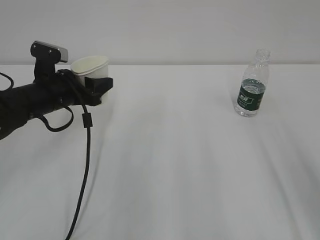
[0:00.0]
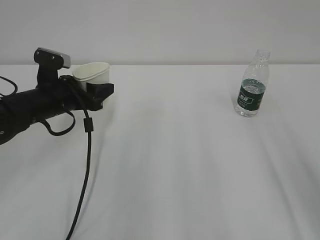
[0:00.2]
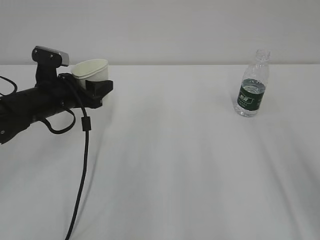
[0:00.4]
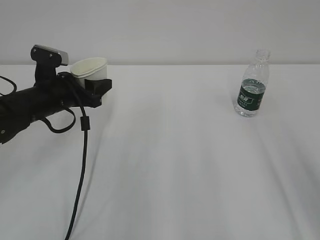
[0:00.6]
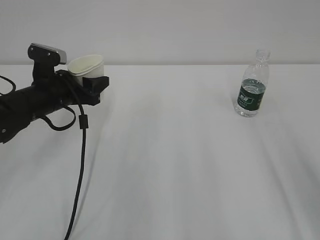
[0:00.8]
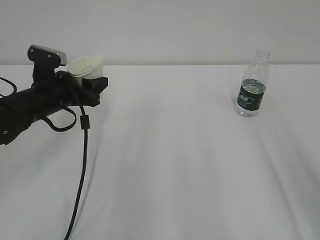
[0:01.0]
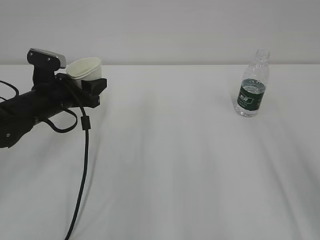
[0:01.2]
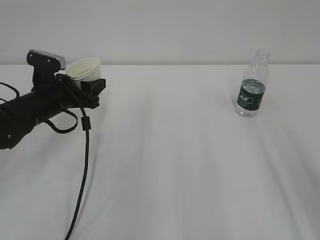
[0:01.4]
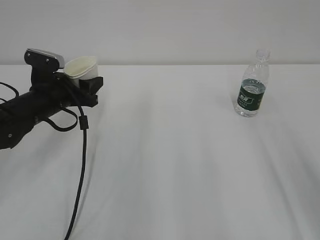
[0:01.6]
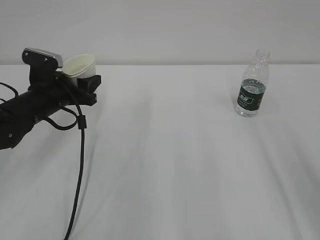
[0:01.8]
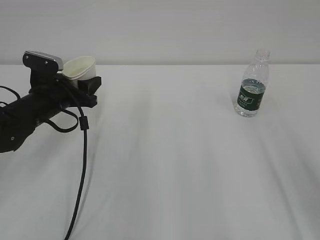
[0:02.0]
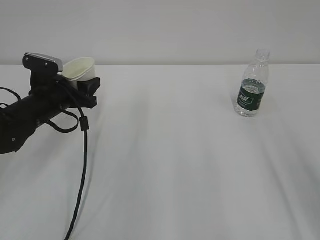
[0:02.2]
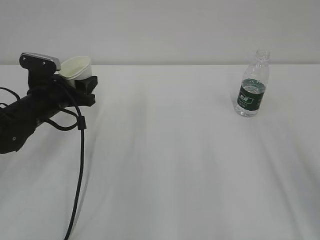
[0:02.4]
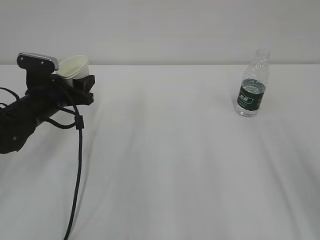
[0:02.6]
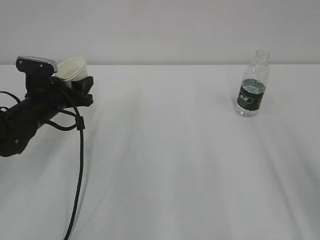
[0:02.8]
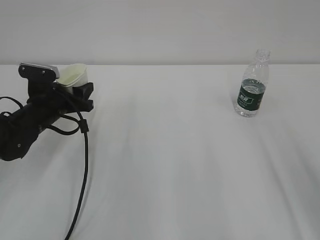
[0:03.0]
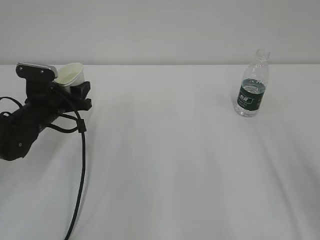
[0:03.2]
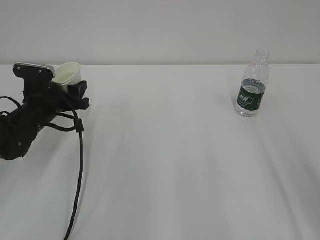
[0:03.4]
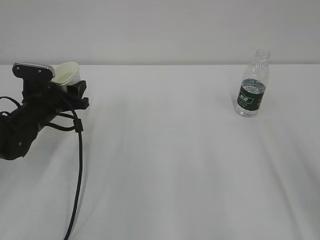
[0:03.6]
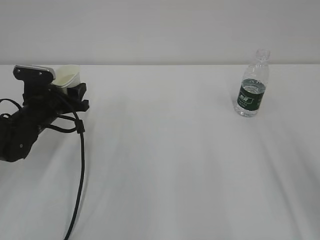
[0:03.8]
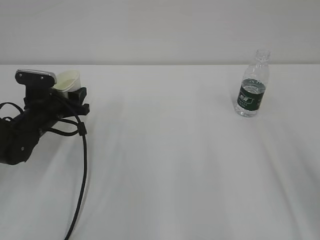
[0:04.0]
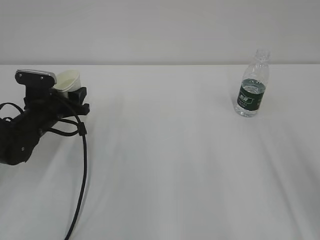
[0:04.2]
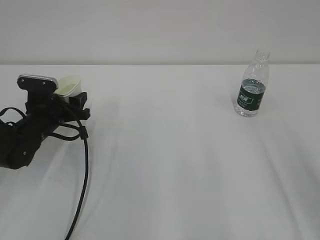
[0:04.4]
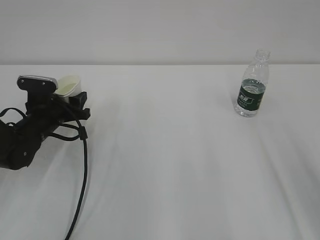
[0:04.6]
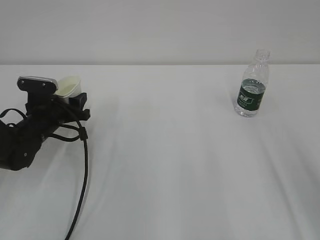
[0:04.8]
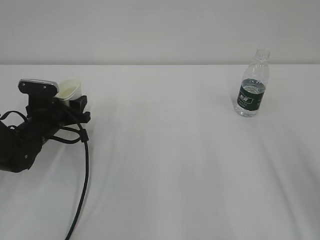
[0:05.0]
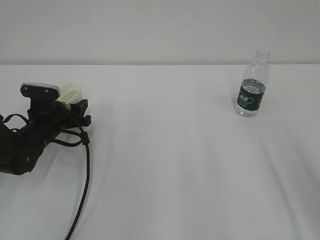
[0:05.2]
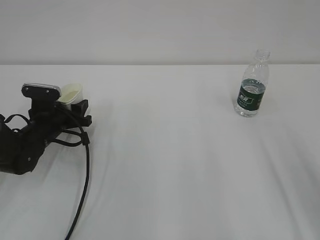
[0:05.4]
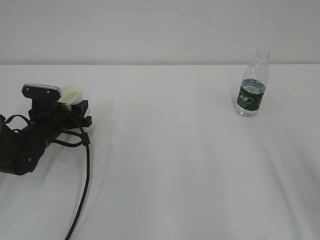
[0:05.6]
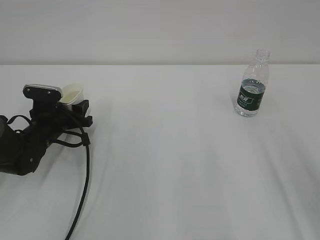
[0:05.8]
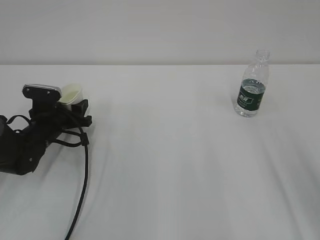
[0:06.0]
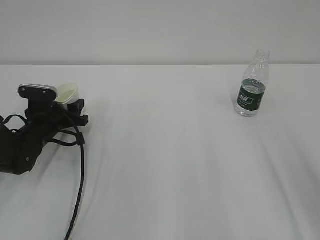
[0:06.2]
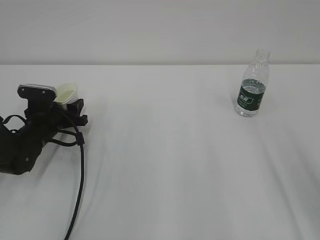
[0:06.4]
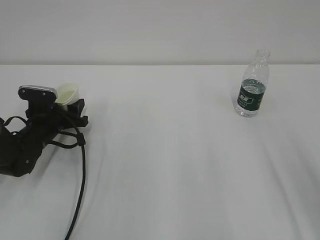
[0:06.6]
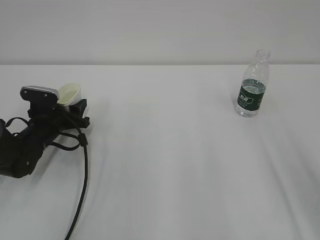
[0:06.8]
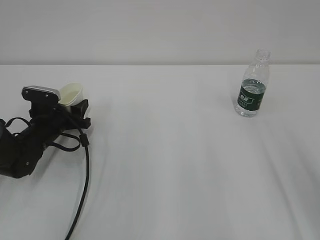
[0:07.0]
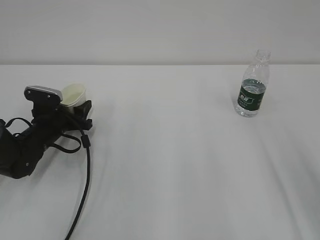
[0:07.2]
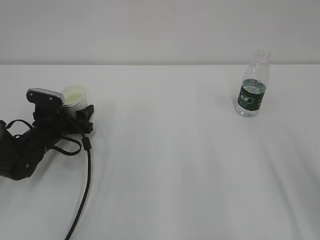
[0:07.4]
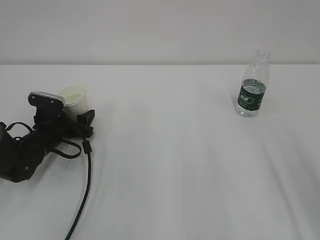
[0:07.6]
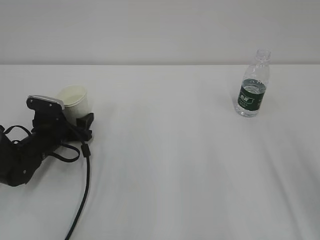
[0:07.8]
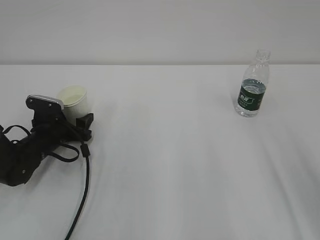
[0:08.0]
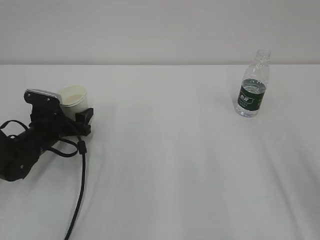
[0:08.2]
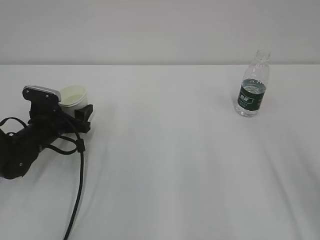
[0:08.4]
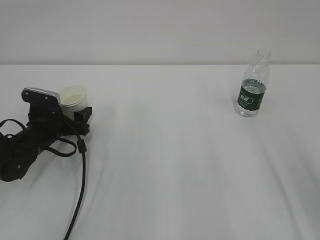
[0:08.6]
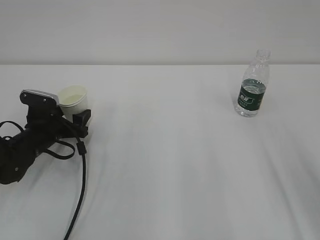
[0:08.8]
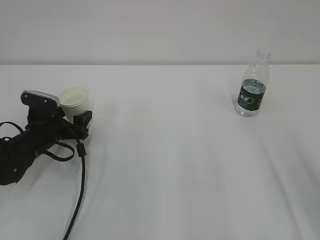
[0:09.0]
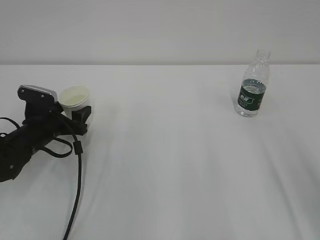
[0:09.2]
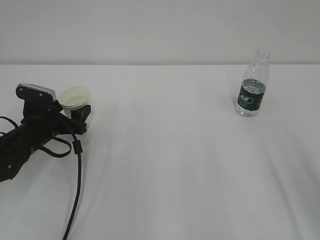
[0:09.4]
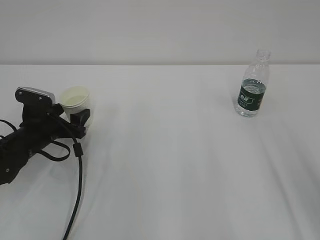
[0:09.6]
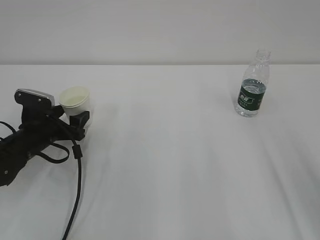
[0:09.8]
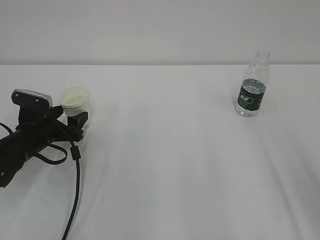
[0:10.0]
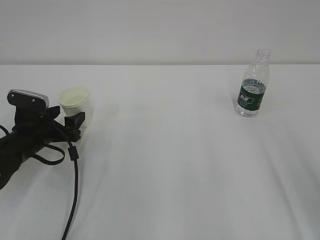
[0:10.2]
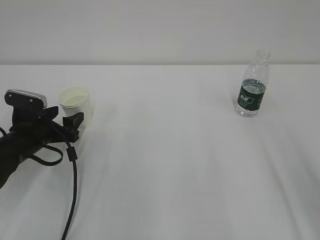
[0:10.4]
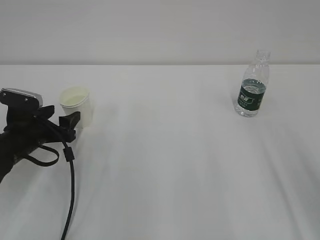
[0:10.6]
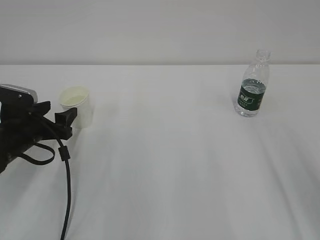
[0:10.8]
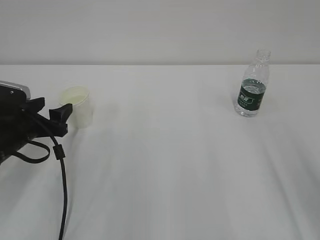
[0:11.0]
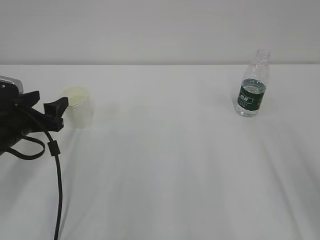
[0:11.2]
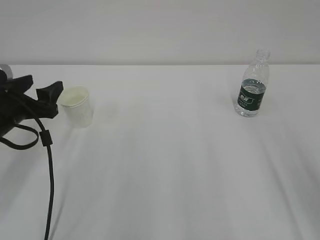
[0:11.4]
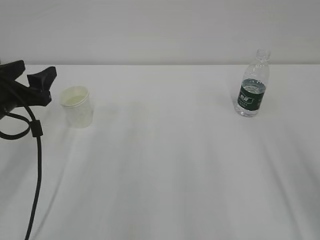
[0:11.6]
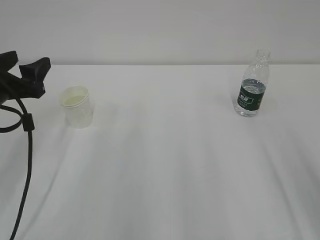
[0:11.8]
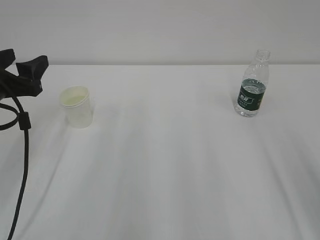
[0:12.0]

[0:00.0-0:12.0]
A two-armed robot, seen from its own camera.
0:00.0 to 0:03.0: The grippers stay close to where they were, moving slightly.
0:03.0 to 0:06.0: The grippers move only a little.
0:06.0 to 0:07.6: The left gripper opens its fingers.
0:07.6 to 0:09.0: There are only small adjustments of the grippers.
0:09.0 to 0:10.4: The grippers make only small movements.
0:10.4 to 0:12.0: The left gripper is displaced upward by about 15 cm.

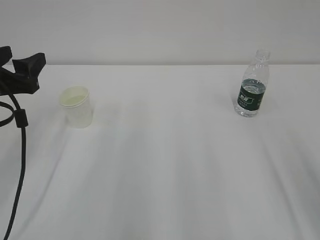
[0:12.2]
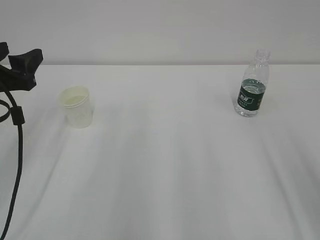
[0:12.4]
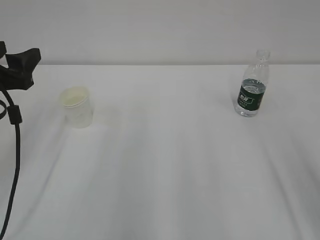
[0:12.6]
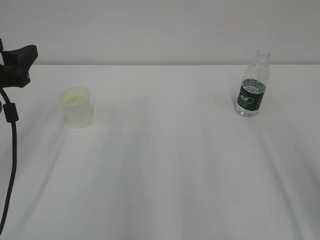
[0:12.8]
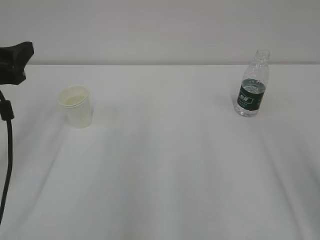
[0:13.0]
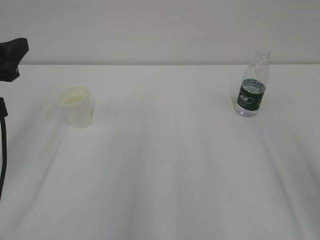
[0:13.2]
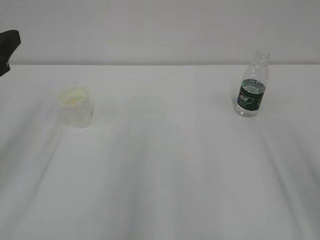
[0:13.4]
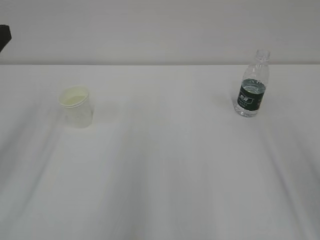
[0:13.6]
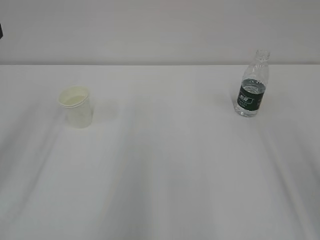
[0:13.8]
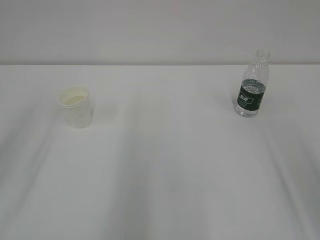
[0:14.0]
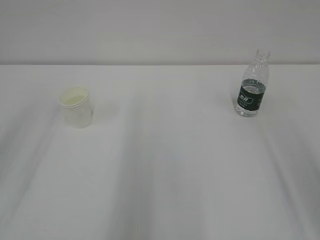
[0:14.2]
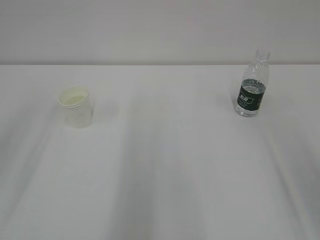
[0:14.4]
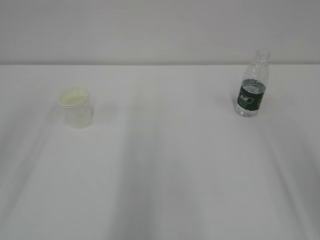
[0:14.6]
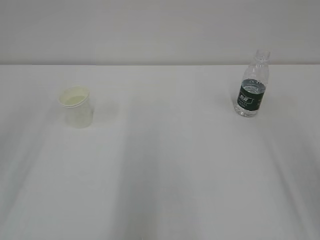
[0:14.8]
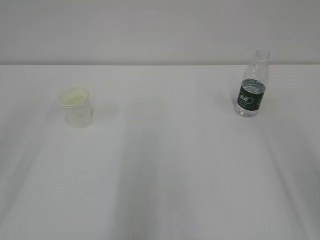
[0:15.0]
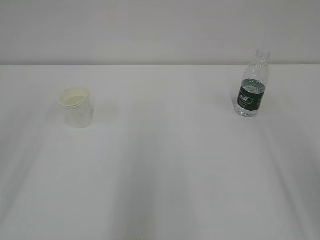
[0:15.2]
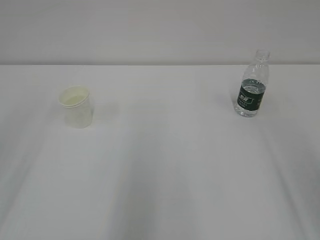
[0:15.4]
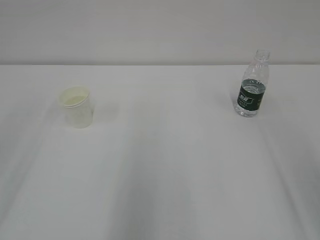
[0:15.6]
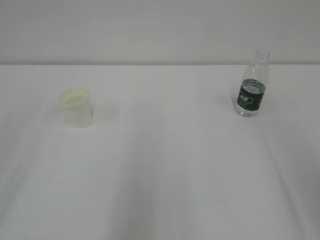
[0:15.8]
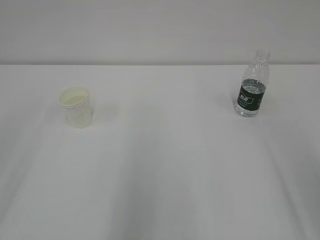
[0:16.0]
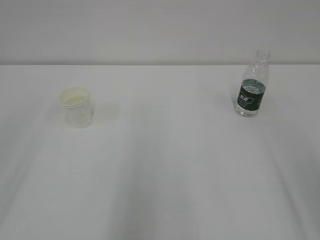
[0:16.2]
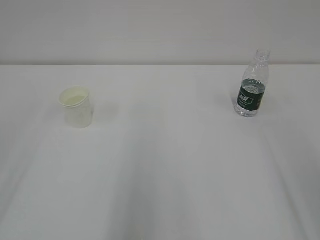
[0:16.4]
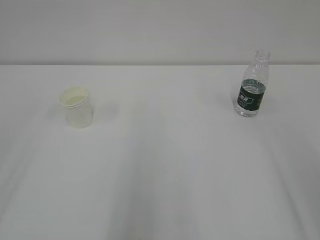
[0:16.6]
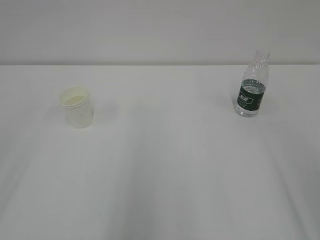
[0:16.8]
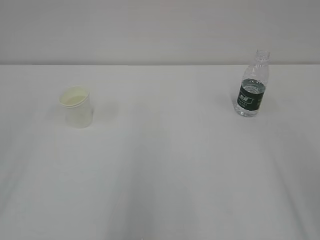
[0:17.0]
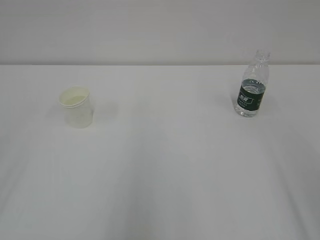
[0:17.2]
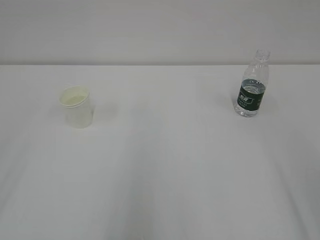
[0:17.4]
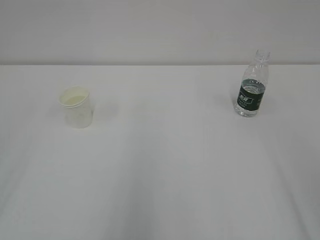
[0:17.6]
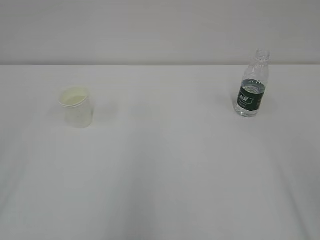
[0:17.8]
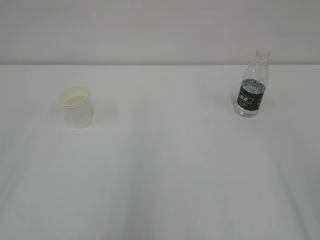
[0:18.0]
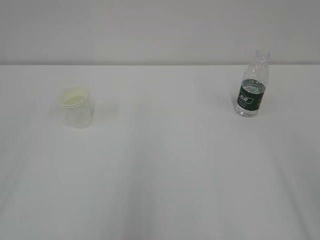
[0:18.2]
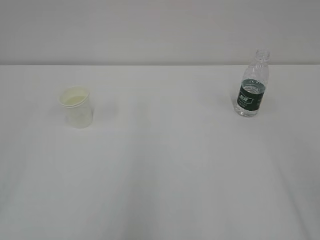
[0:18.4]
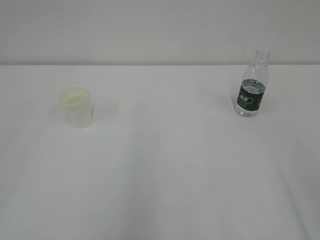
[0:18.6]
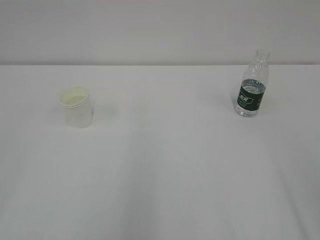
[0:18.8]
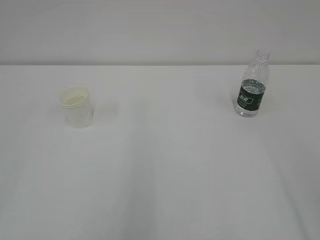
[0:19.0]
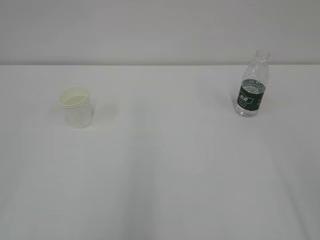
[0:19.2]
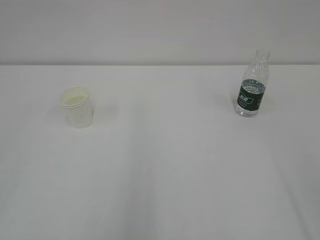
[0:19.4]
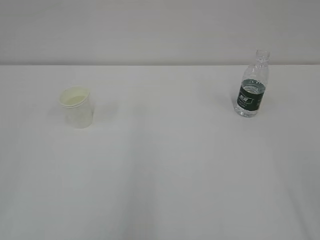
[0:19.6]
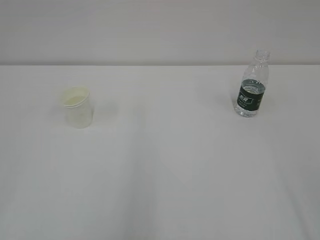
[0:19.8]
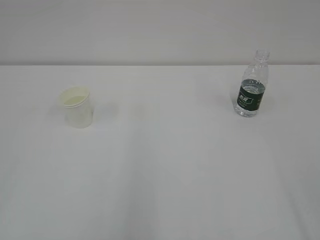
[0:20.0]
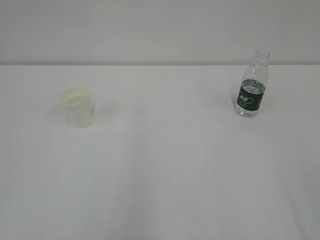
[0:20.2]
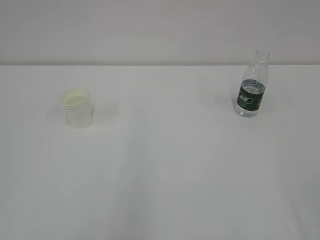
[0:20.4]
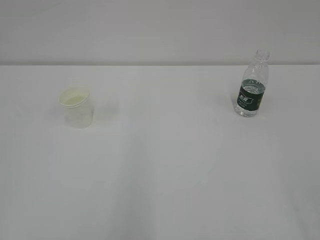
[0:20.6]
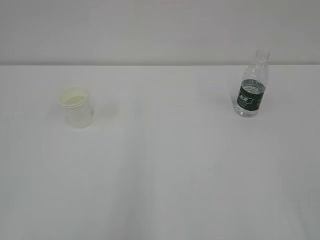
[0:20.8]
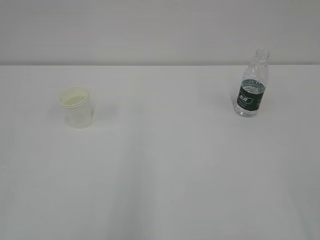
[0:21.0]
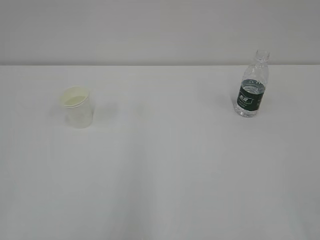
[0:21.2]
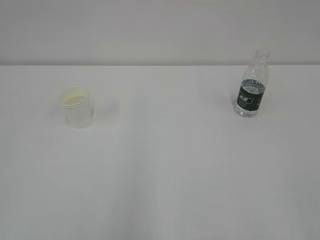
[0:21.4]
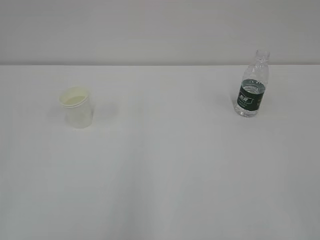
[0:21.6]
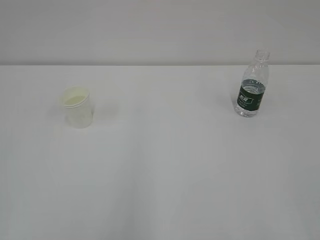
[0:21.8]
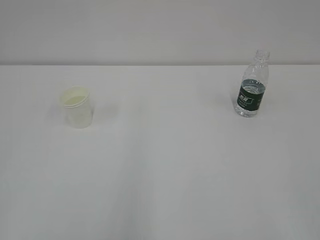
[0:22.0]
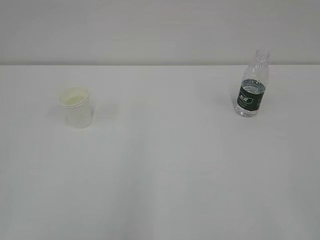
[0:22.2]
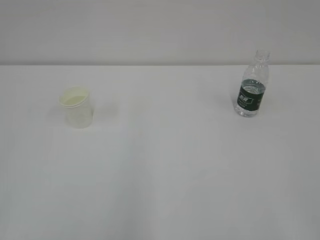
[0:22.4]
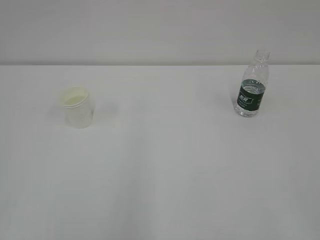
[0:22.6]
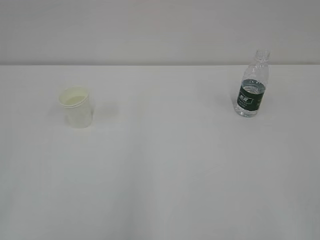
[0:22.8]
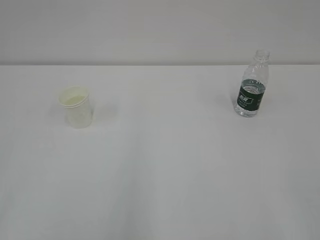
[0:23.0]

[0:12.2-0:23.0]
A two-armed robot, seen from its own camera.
0:12.2 to 0:13.8: The left gripper is displaced upward and backward by some 10 cm.
